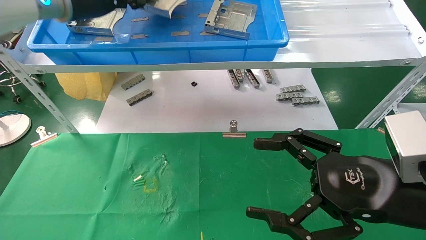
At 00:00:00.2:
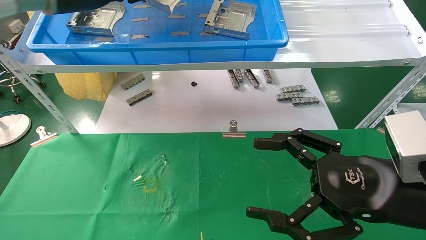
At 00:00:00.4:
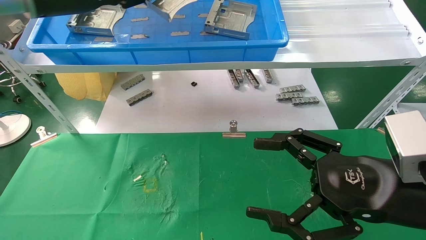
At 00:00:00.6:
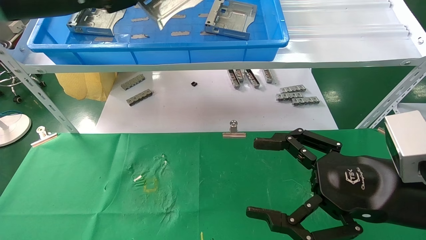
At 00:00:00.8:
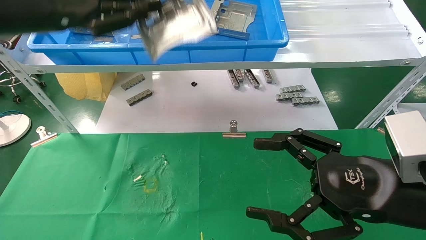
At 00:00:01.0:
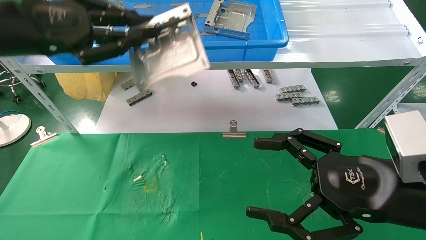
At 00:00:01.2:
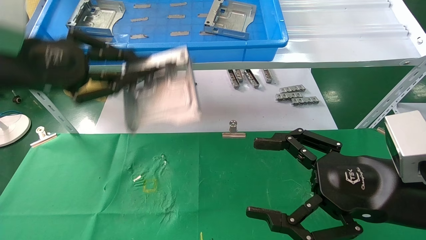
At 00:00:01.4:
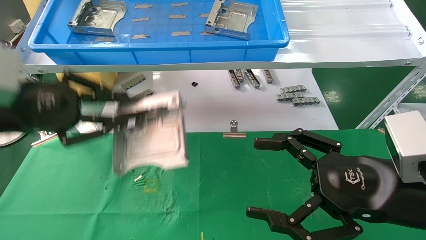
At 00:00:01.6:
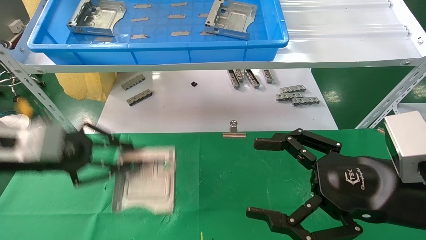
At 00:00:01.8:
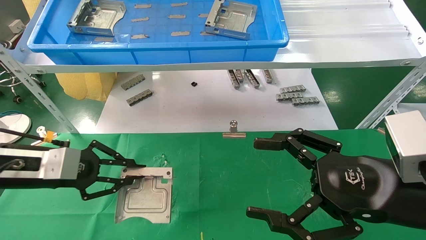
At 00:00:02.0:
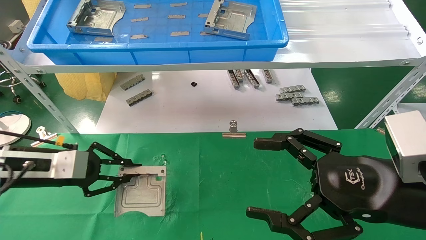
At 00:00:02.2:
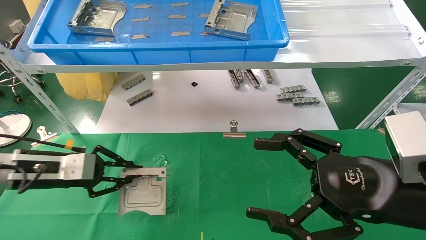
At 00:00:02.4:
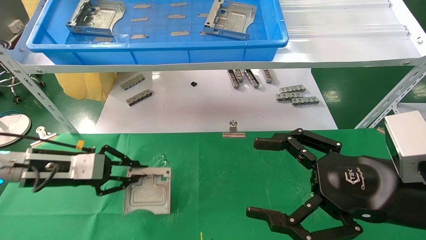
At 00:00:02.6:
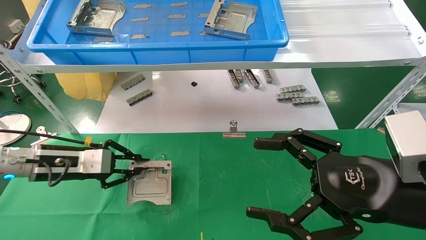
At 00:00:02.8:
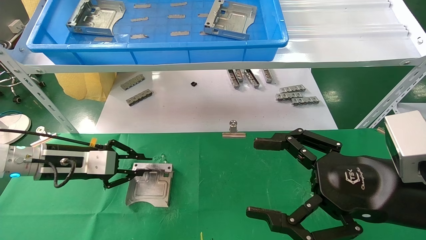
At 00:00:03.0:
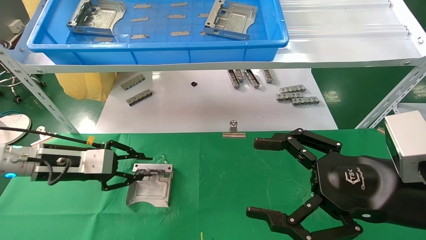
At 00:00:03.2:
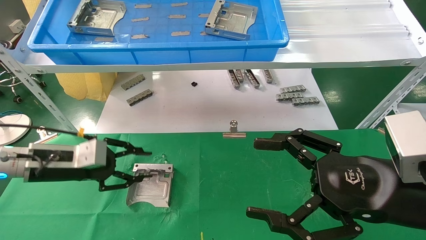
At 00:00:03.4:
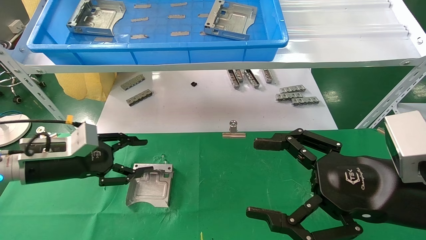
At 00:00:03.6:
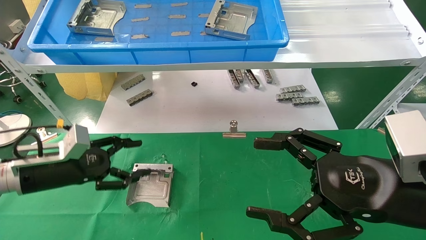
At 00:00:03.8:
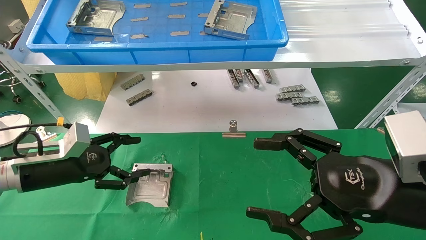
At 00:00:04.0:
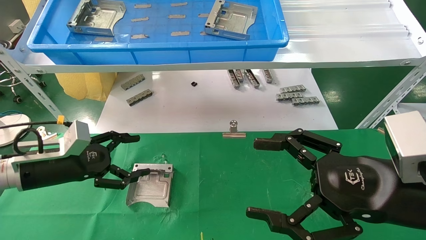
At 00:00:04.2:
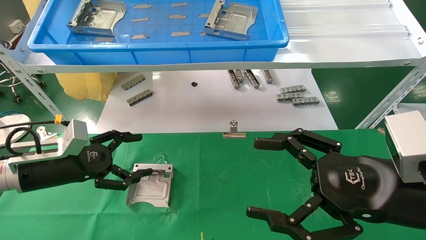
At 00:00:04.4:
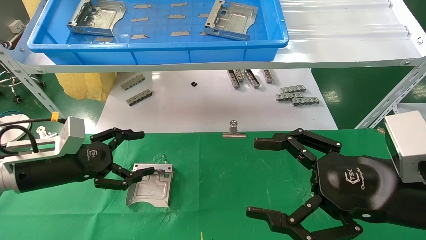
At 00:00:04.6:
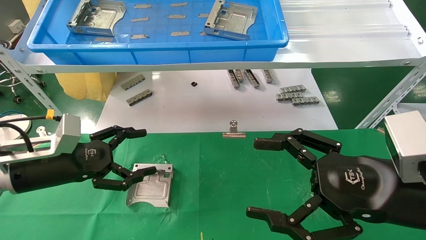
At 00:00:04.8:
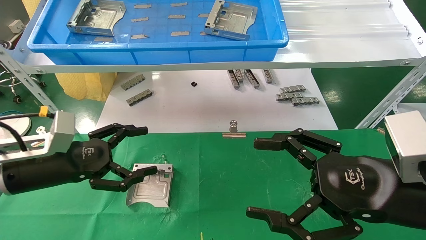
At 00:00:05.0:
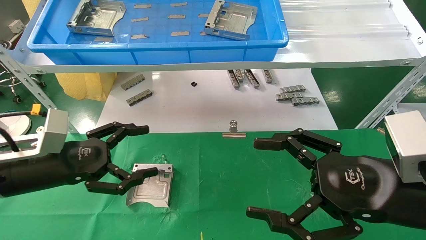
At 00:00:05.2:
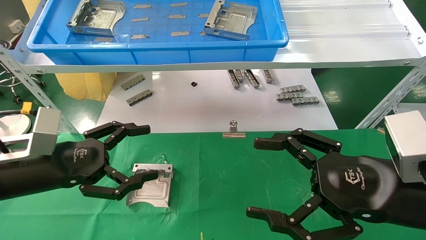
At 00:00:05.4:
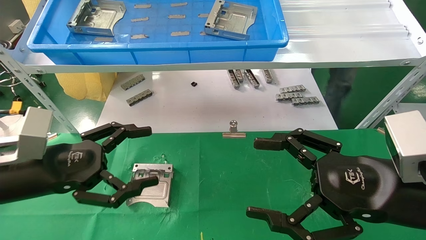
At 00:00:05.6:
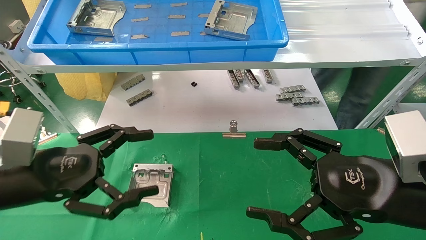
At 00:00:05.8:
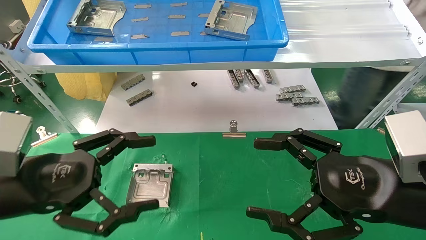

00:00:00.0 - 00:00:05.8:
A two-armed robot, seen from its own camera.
Task of the whole recording: use the mechanical arm to pick up the parts and place them on the table.
Step, 00:00:00.0 - 00:00:02.8: Place the hard drive bracket into the box.
00:00:00.0 - 00:00:01.4: The left gripper heads downward, backward and to the left, covering roughly 20 cm.
00:00:01.4 - 00:00:02.8: The left gripper travels downward and forward by roughly 15 cm.
00:00:02.8 - 00:00:04.4: The left gripper opens.
00:00:04.4 - 00:00:05.8: The left gripper goes about 10 cm backward.
